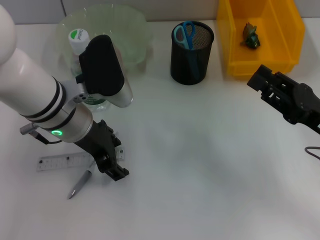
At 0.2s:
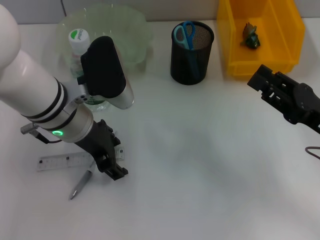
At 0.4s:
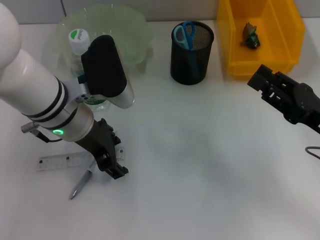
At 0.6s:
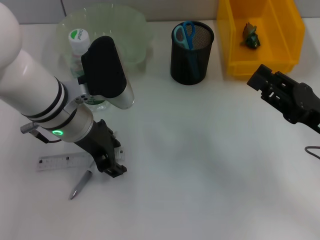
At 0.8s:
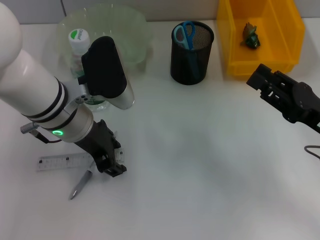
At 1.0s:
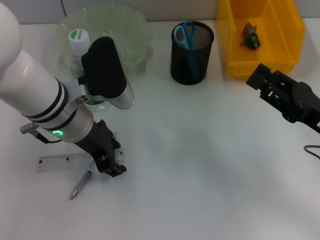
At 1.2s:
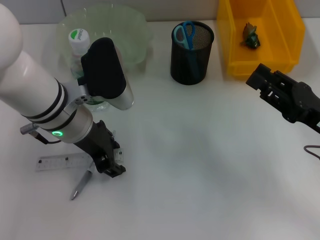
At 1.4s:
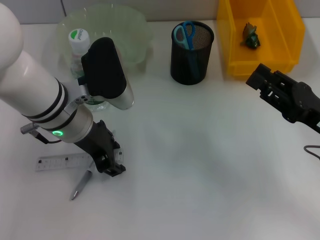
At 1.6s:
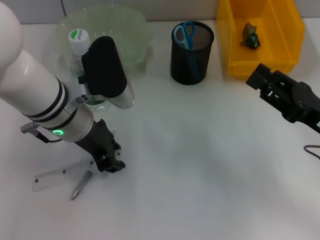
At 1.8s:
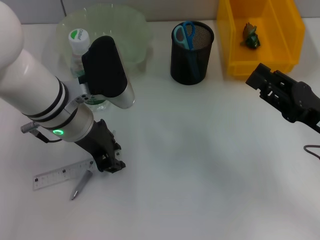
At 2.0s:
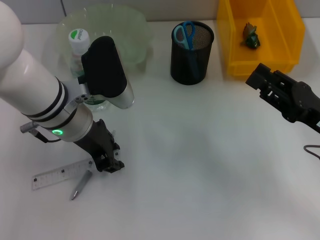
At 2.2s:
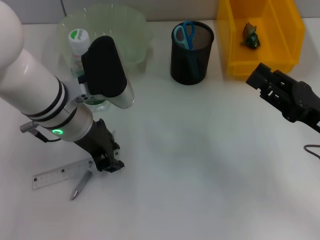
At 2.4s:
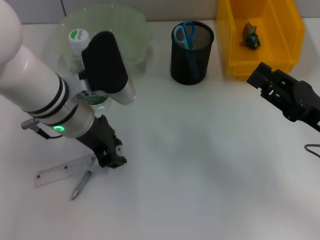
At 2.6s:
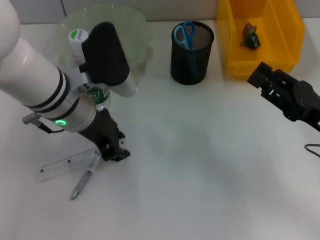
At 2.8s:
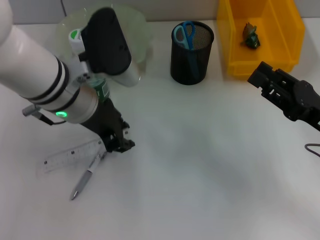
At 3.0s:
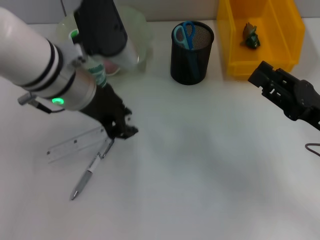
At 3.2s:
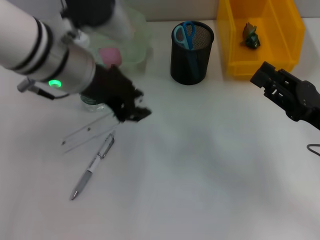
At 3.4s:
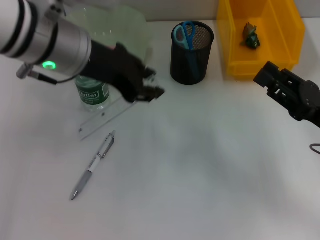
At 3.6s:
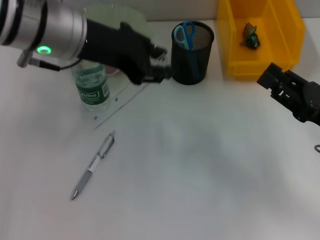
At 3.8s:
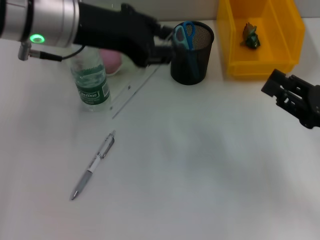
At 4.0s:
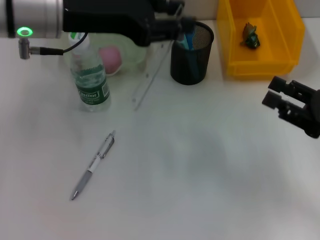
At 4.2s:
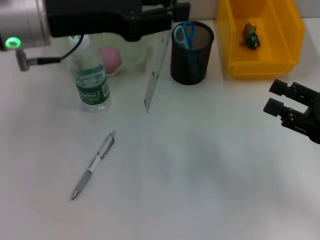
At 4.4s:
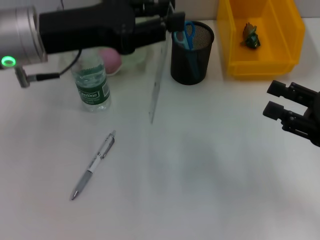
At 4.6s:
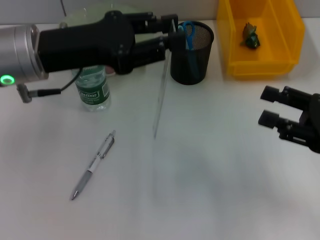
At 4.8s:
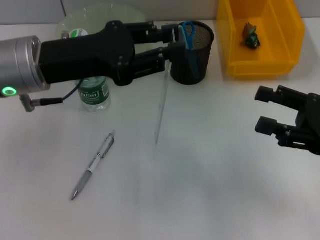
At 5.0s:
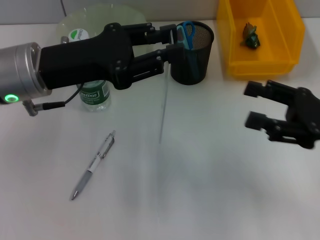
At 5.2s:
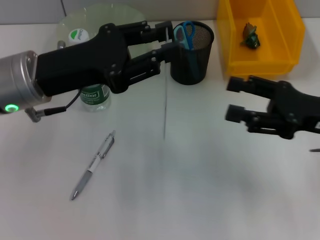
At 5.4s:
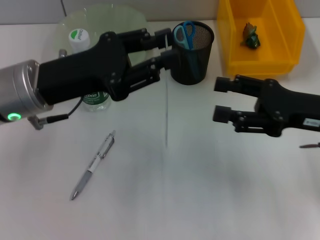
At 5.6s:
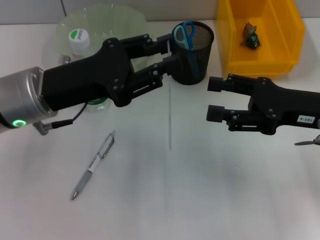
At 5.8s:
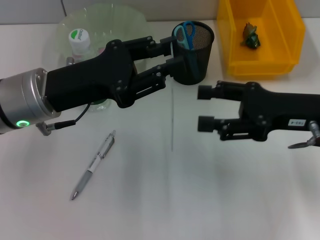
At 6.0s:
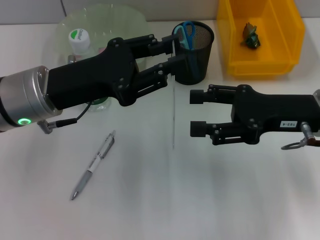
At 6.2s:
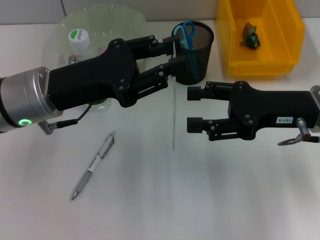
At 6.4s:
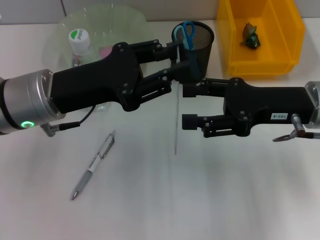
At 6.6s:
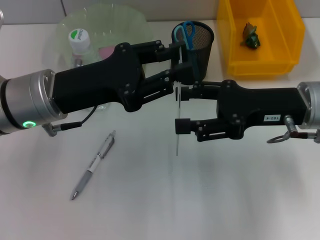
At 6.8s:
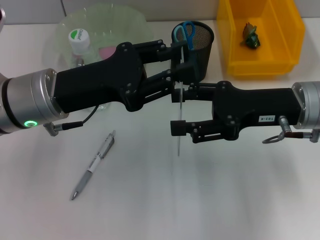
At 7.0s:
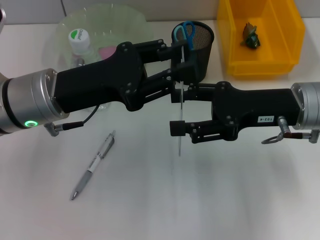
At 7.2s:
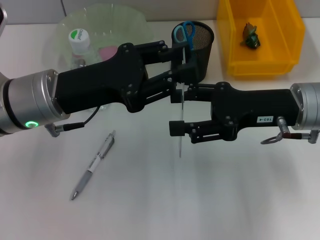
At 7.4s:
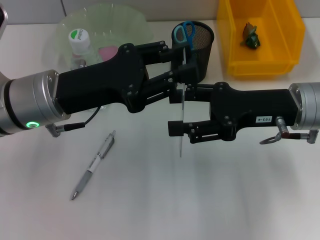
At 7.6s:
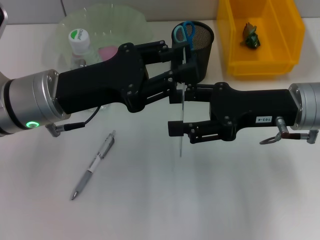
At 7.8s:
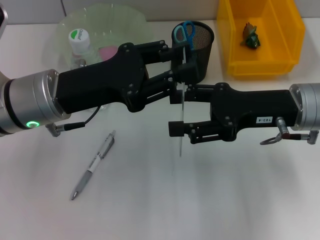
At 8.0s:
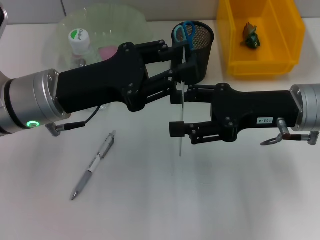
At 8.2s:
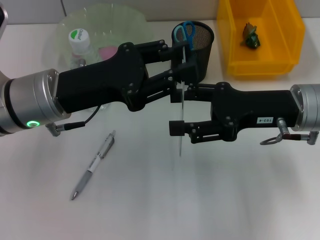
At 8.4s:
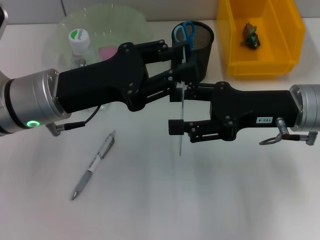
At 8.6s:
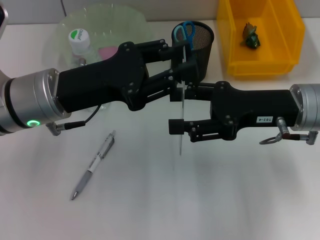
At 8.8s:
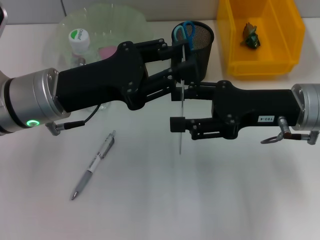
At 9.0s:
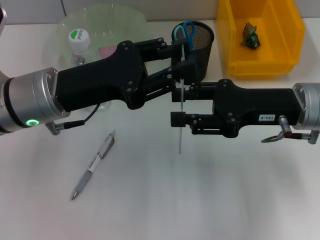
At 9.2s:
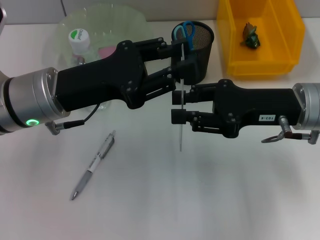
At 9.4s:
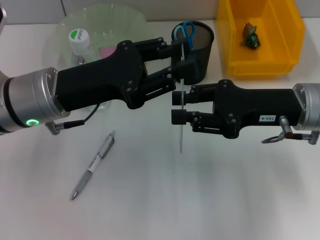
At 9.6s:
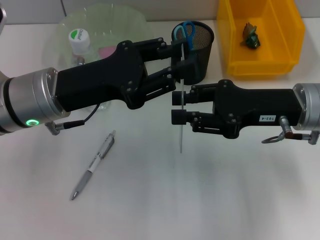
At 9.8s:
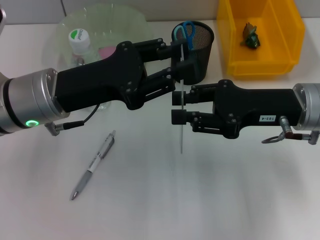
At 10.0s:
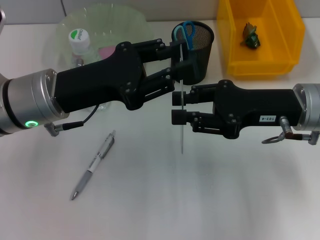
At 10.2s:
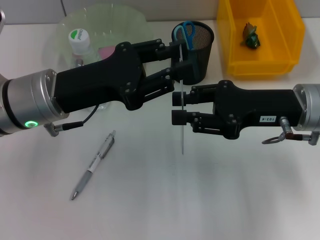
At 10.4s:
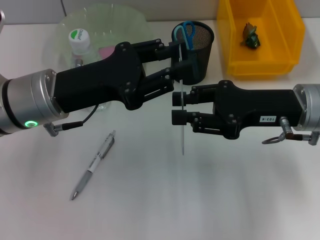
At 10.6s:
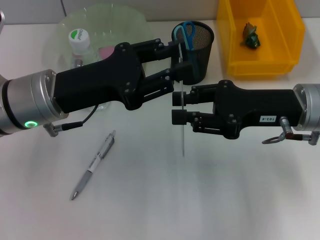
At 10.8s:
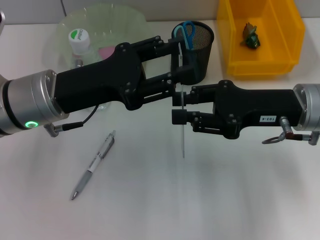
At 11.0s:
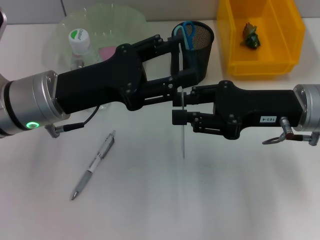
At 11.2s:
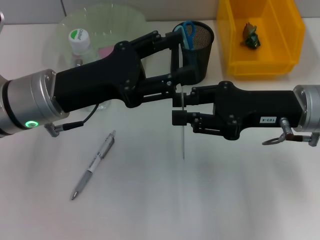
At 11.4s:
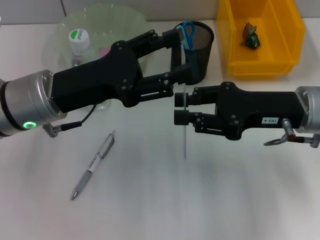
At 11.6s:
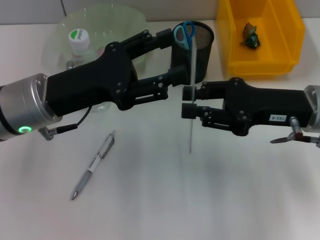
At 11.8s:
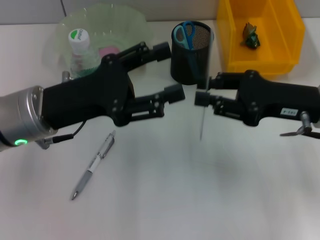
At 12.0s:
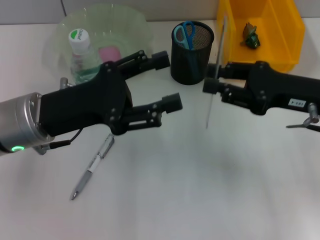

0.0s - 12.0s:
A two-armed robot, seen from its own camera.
Step, 1.8s - 11.6s: Pass the ruler from the left hand to the right hand.
0.0s - 1.6s: The two grippers keep their place.
1.6s - 3.0s: The left gripper is displaced upward by some 5 cm.
3.0s - 4.4s: The left gripper heads to the left, covering approximately 5 cm.
4.4s - 6.0s: The left gripper travels downward by approximately 5 cm. The right gripper shifts about 10 cm to the left and forward.
6.0s - 7.6s: The grippers stay close to where they were, moving slightly.
7.6s - 9.0s: The two grippers keep their place.
9.0s - 10.4s: The right gripper closes up.
10.4s - 12.0s: The left gripper opens its fingers.

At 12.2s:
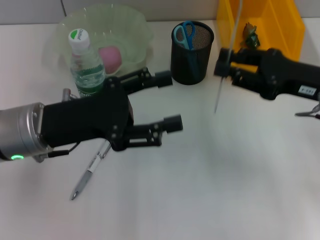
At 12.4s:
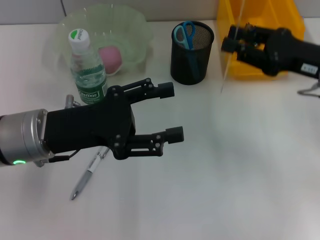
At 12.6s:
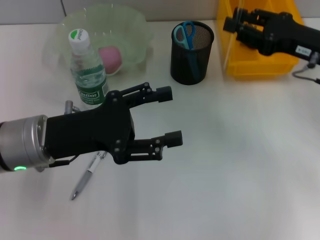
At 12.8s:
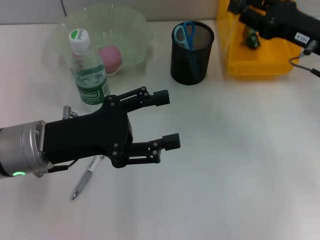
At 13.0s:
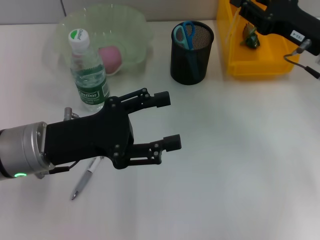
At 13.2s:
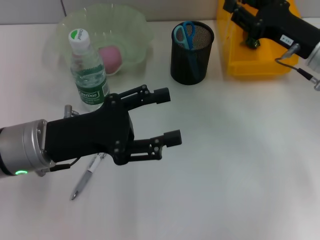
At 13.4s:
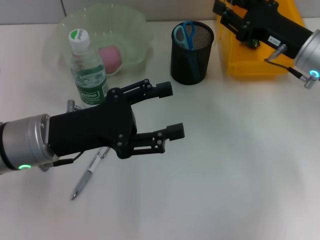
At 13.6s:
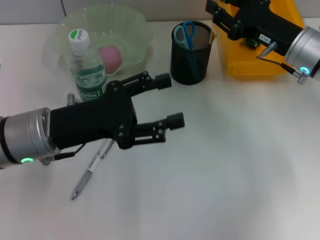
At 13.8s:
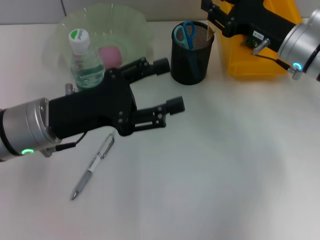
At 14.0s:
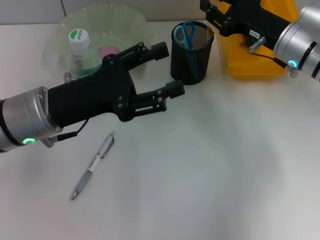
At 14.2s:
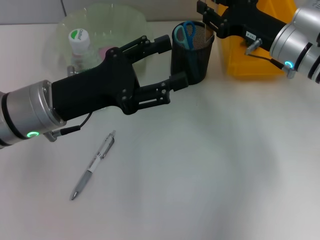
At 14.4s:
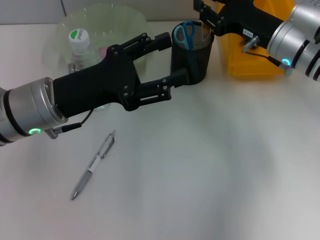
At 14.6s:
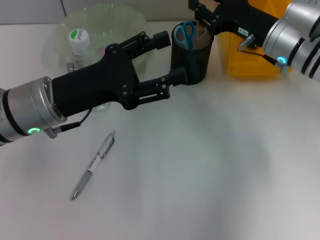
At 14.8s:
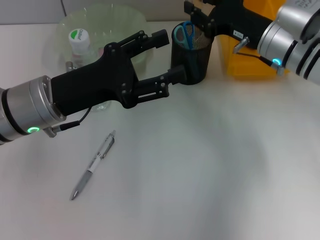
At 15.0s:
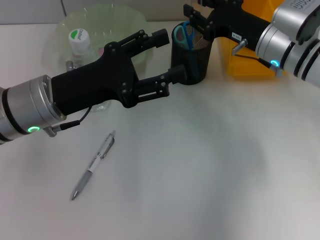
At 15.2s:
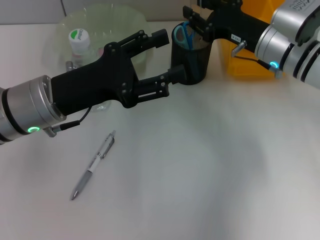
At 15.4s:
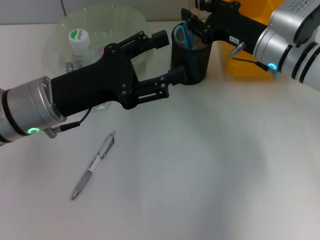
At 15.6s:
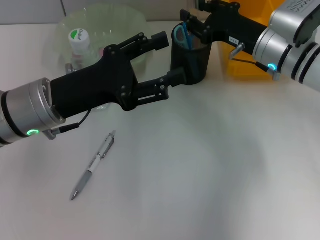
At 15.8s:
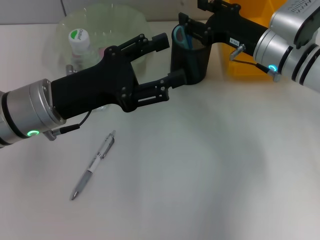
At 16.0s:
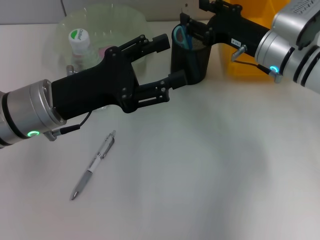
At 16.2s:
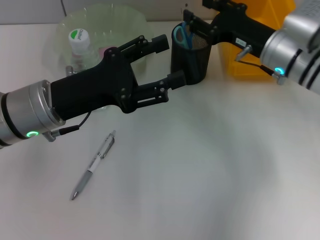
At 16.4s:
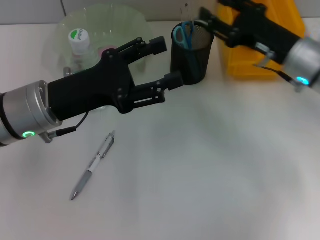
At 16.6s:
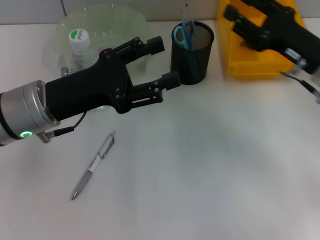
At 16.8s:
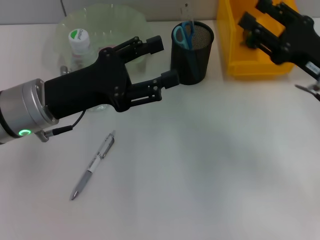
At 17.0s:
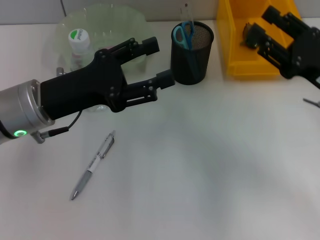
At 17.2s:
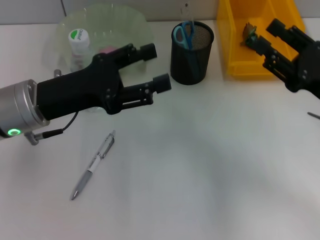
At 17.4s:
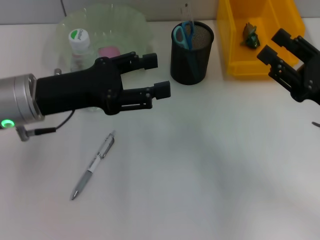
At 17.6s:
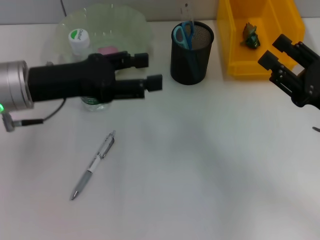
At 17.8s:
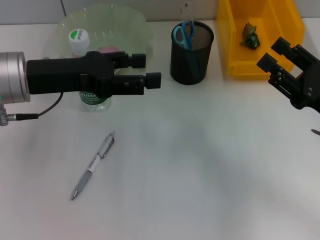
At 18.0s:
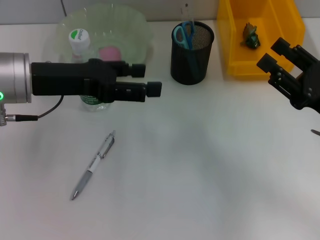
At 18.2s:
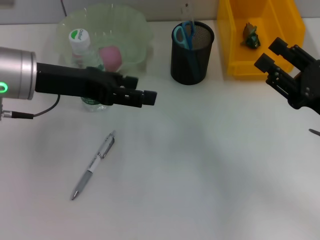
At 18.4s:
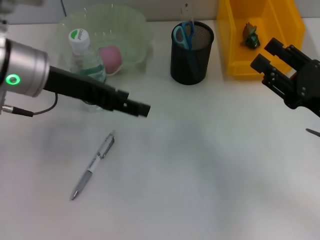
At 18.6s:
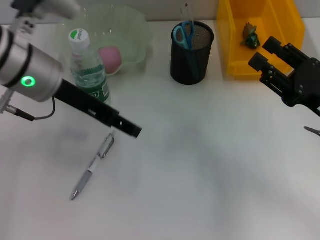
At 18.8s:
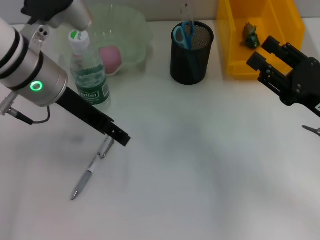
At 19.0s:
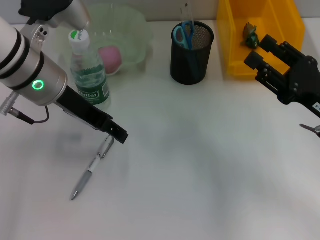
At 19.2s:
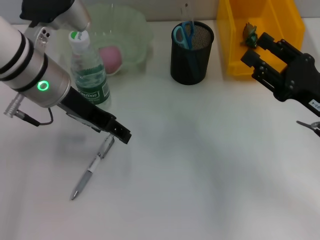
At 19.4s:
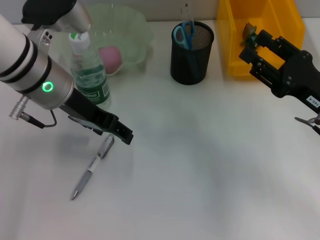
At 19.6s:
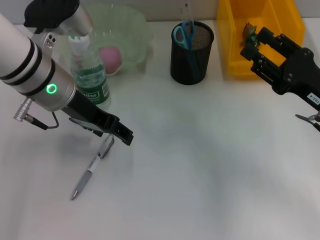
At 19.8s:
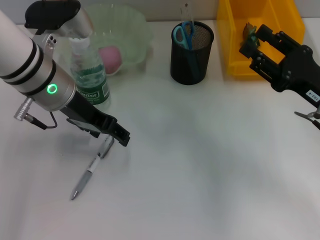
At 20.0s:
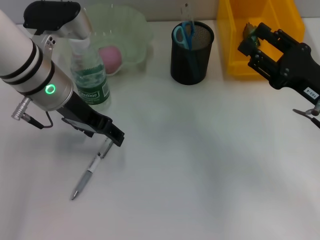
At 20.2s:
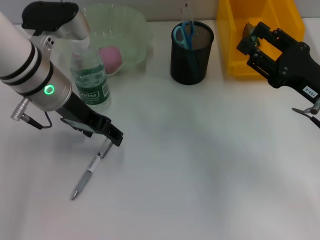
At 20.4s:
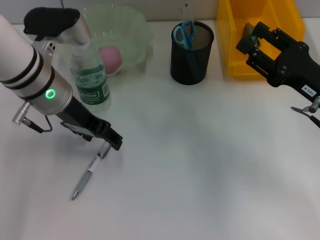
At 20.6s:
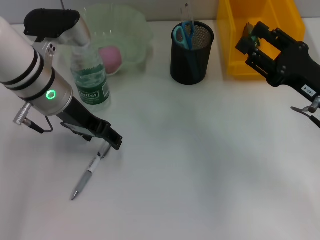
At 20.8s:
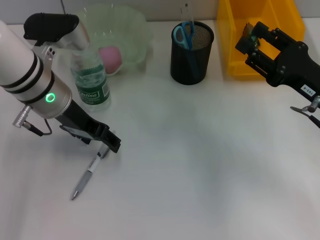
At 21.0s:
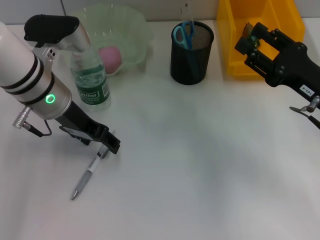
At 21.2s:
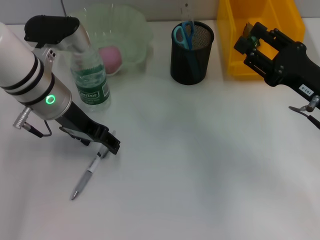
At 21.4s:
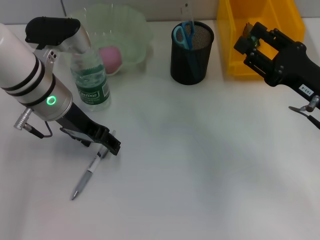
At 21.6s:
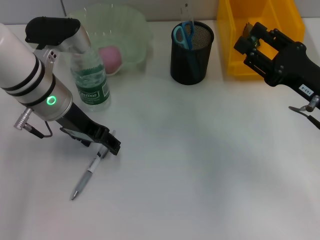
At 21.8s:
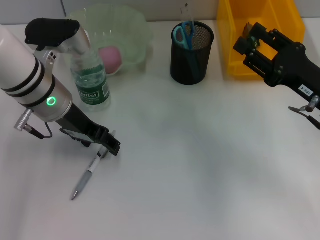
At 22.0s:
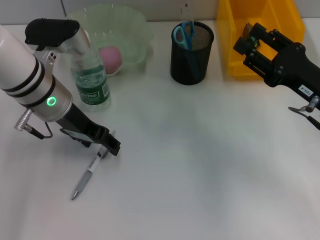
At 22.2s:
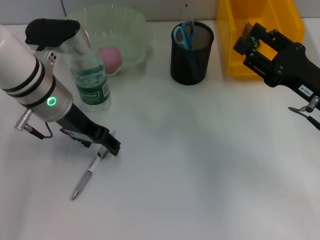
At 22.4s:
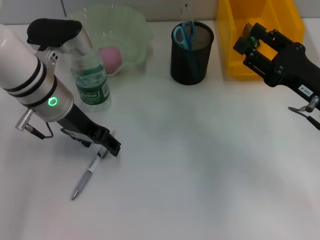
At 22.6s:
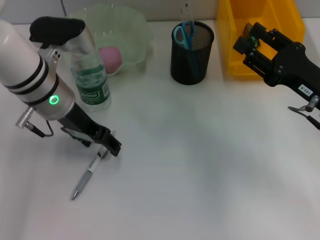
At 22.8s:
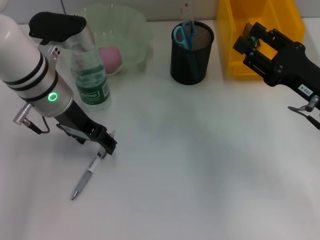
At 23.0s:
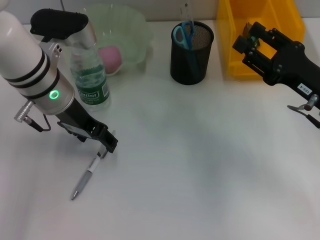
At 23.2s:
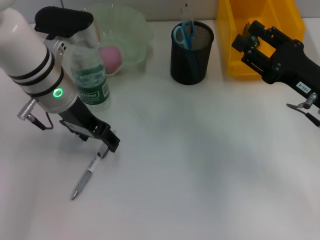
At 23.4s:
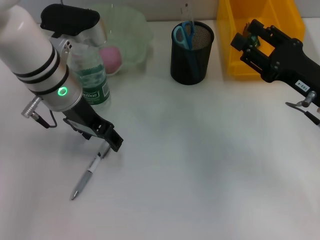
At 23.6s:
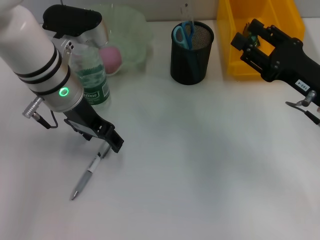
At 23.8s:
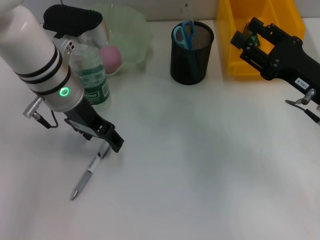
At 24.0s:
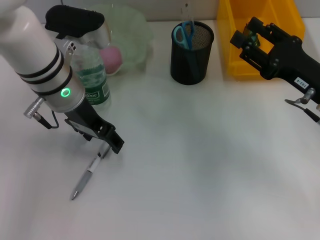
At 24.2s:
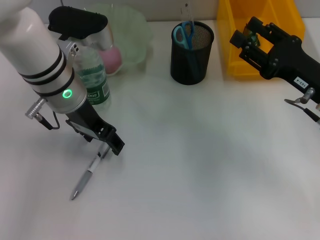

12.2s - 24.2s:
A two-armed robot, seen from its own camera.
Step, 12.2s - 16.2s: Place the ruler into the pen holder with the right hand.
12.2s - 13.8s: The right gripper heads forward, covering approximately 10 cm.
15.2s - 16.6s: The right gripper travels backward and to the right by approximately 10 cm.
16.6s - 18.2s: The left gripper travels upward by about 5 cm, while the right gripper heads backward, covering some 10 cm.
18.2s - 19.8s: The left gripper changes place by approximately 5 cm.
19.8s - 21.2s: The grippers make only small movements.
21.2s - 22.6s: Both grippers stay put.
22.6s - 24.2s: The grippers move only a little.
